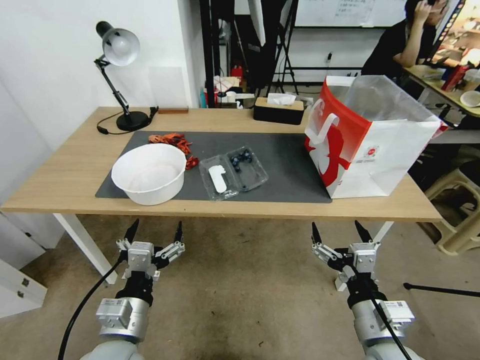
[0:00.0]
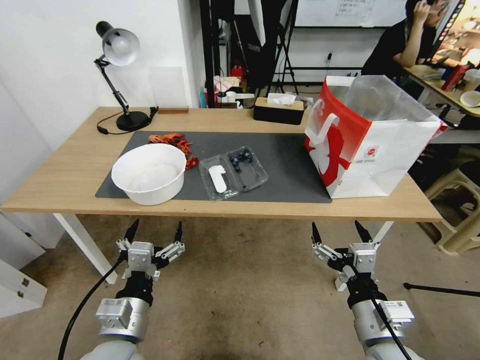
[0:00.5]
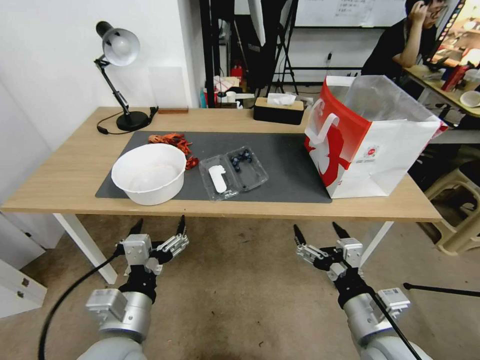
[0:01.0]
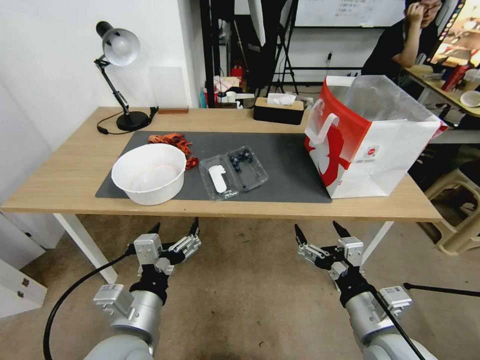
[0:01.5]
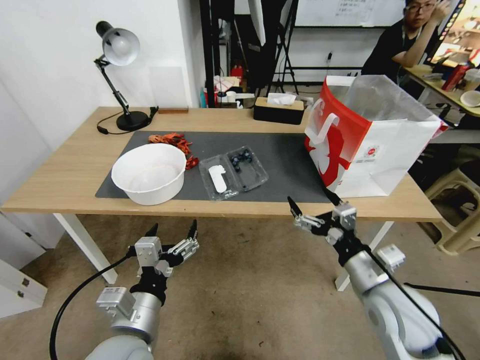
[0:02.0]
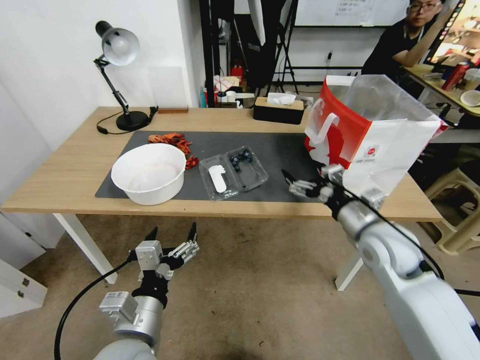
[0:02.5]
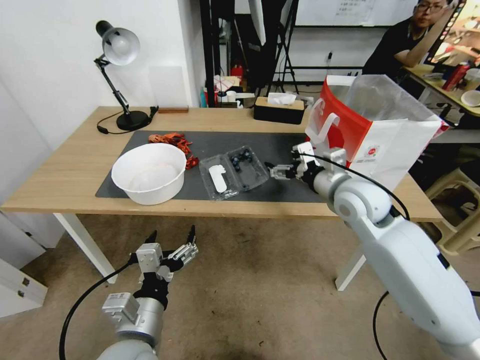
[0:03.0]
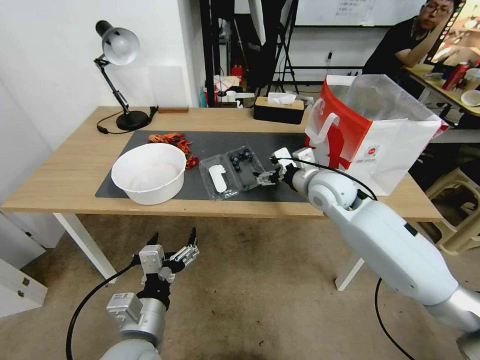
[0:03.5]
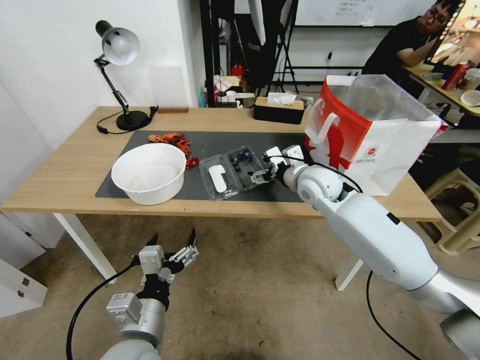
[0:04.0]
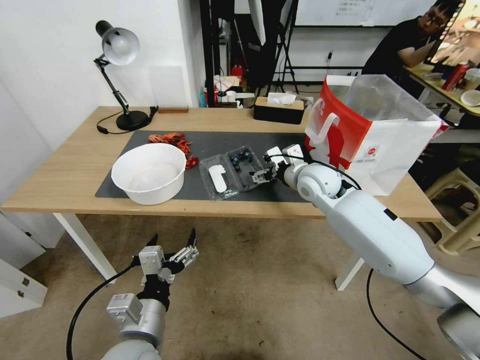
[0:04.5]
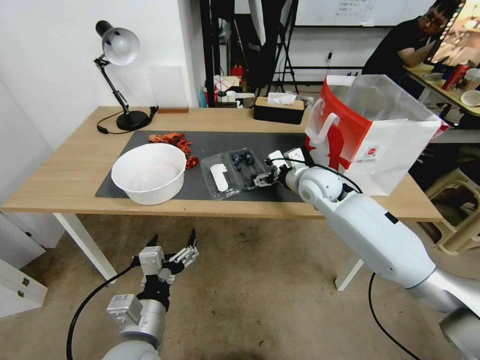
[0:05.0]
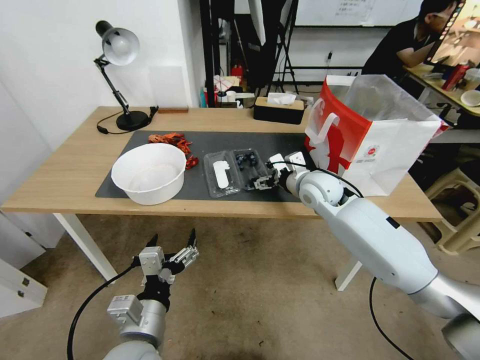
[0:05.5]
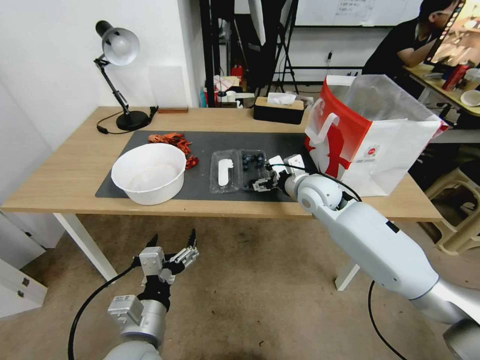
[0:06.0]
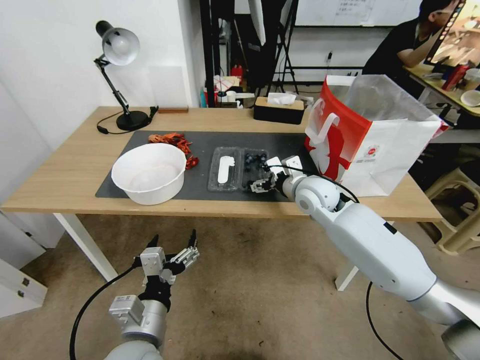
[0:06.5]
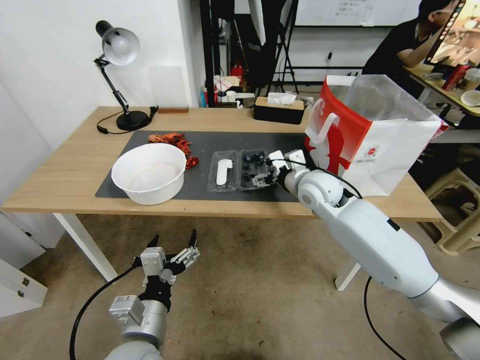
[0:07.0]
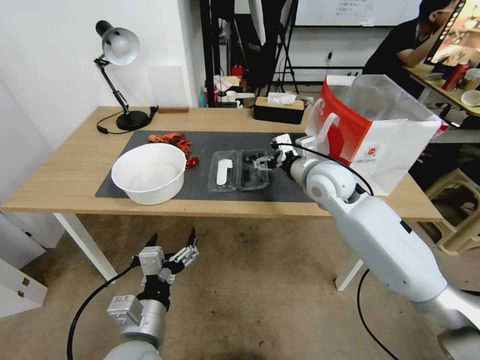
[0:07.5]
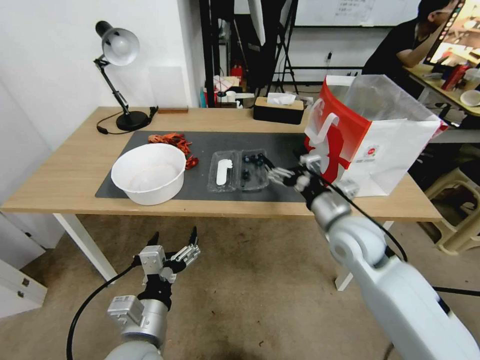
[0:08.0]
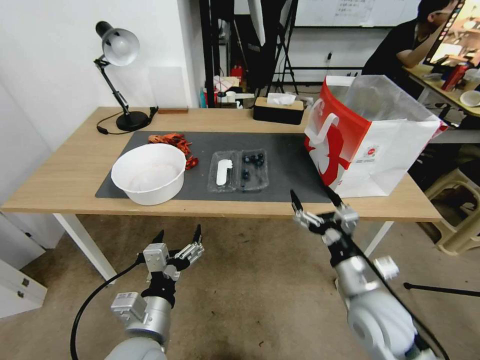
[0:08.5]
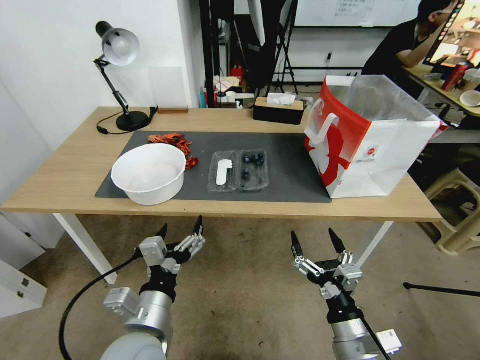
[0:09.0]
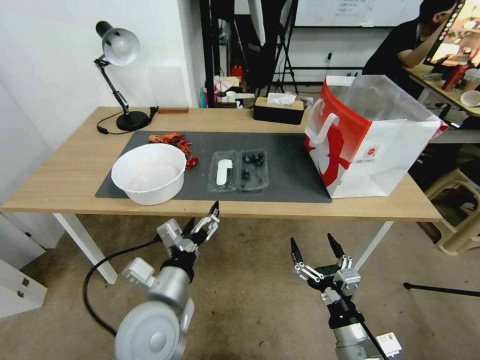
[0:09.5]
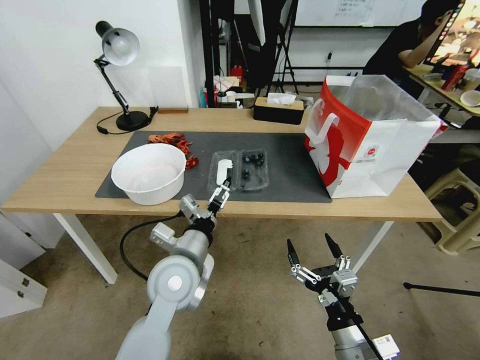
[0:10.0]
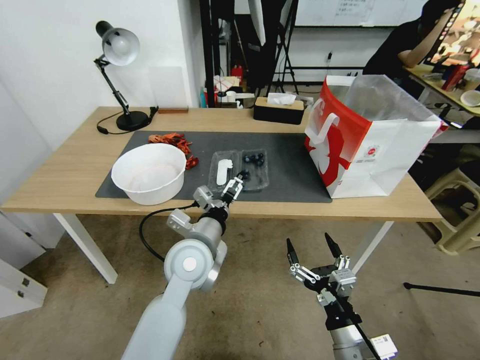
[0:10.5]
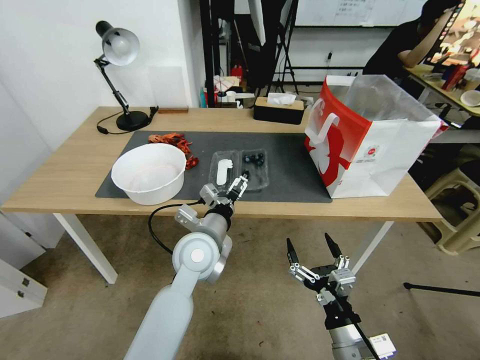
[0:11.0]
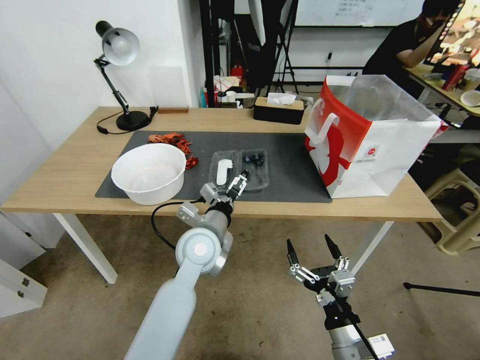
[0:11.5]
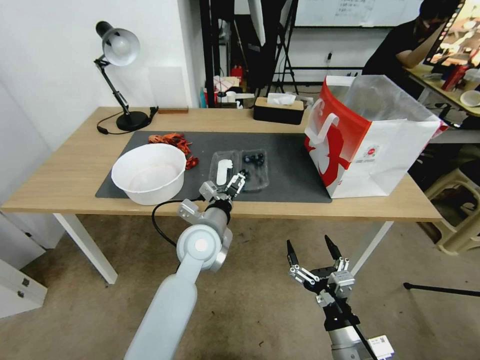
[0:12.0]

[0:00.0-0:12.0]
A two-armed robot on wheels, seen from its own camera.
Task of the whole recording: Close the takeout container lid, then place the container into the takeout bag.
0:02.0 to 0:04.0: The right gripper travels forward by approximately 25 cm.
0:04.0 to 0:06.0: The grippers make only small movements.
0:06.0 to 0:08.0: The right gripper heads backward, covering roughly 10 cm.
0:08.0 to 0:10.0: The left gripper moves forward, approximately 15 cm, while the right gripper shifts approximately 25 cm backward and downward.
0:10.0 to 0:12.0: The left gripper travels forward by roughly 10 cm.

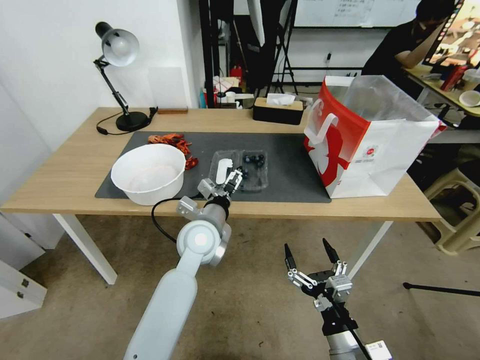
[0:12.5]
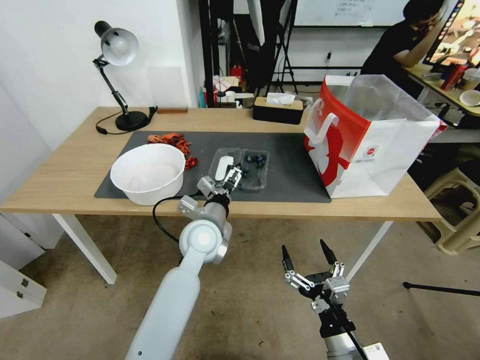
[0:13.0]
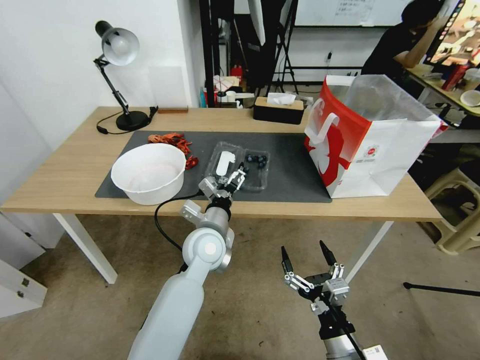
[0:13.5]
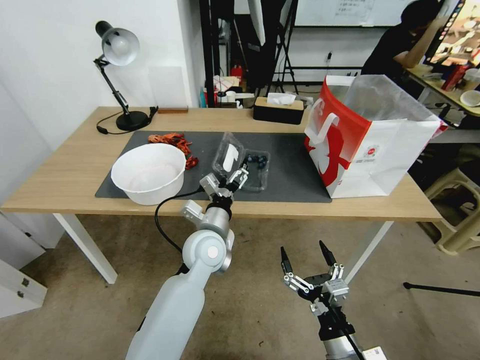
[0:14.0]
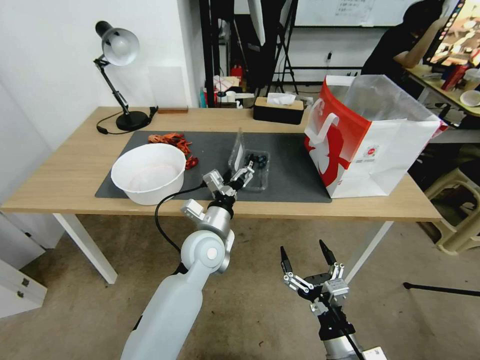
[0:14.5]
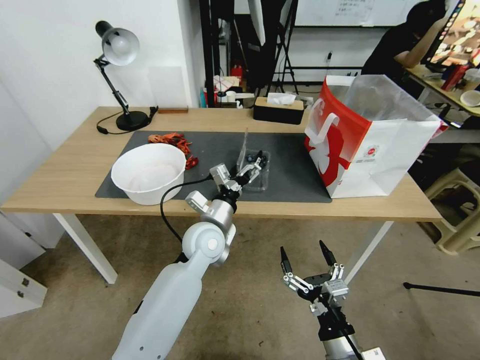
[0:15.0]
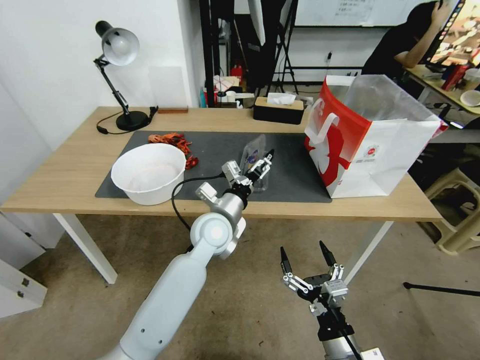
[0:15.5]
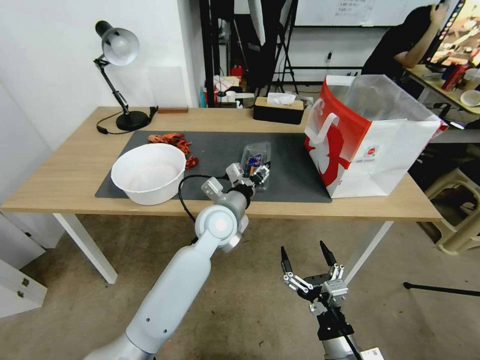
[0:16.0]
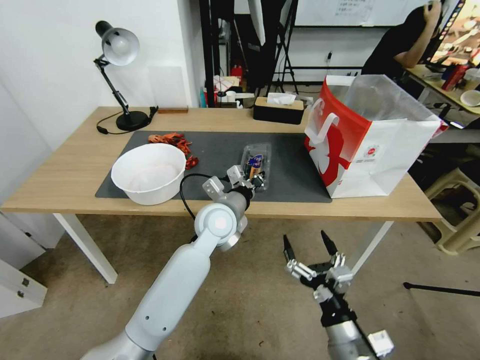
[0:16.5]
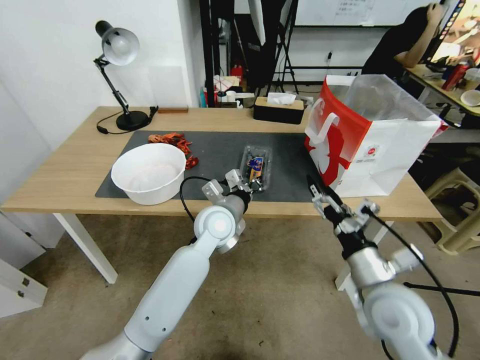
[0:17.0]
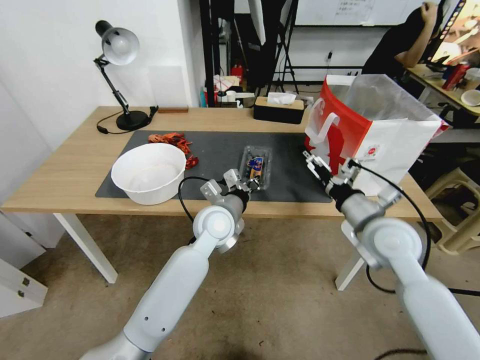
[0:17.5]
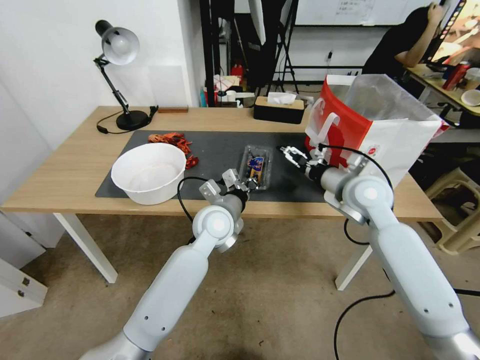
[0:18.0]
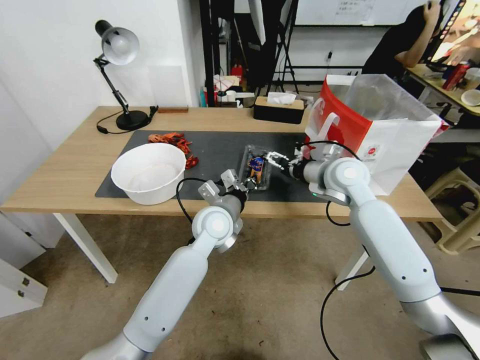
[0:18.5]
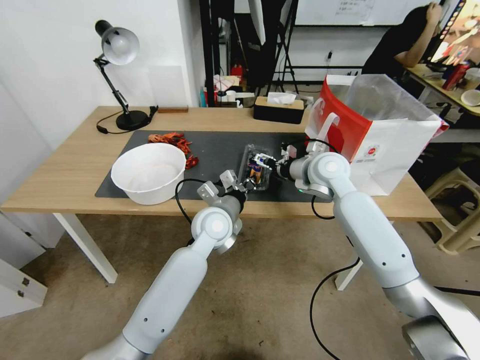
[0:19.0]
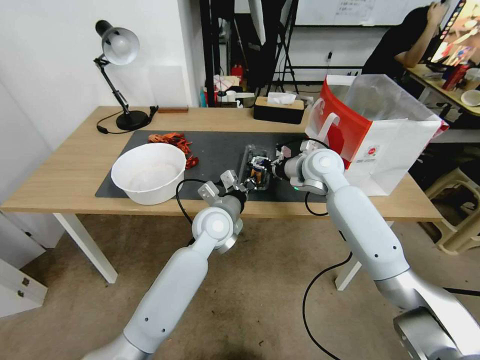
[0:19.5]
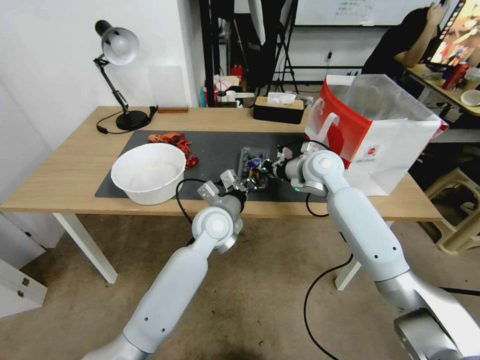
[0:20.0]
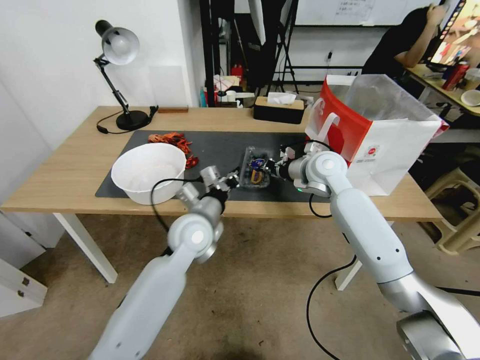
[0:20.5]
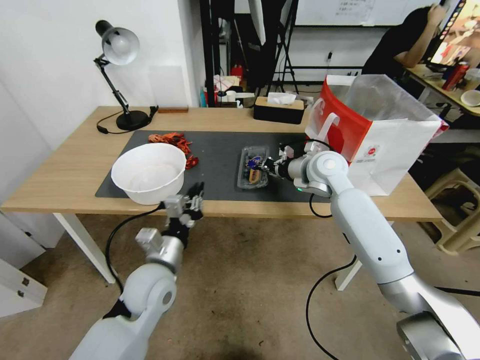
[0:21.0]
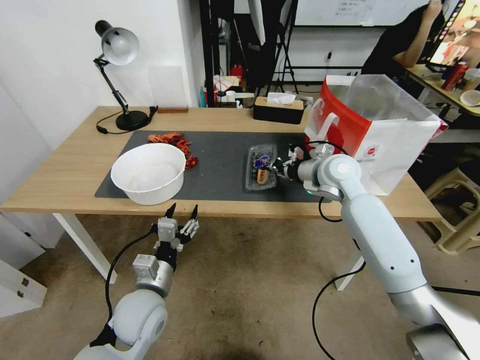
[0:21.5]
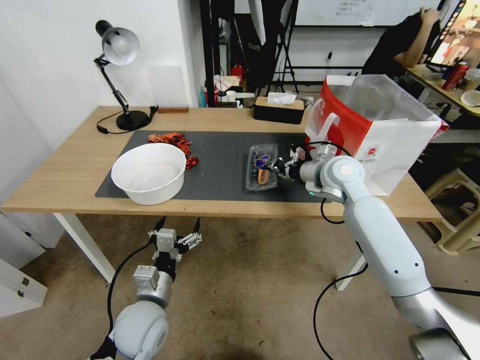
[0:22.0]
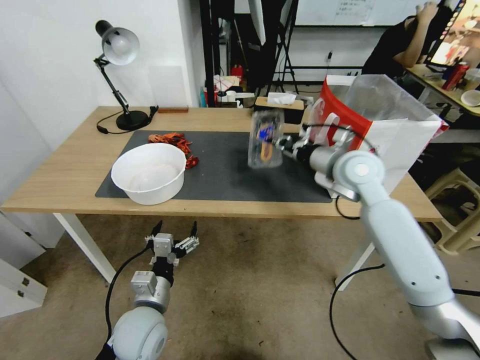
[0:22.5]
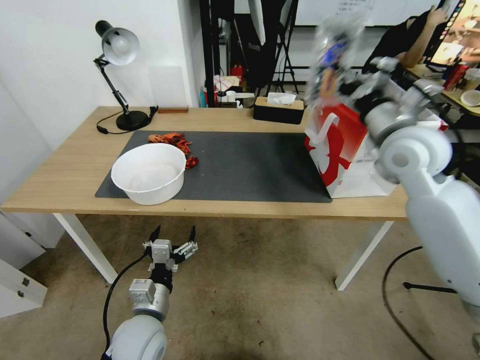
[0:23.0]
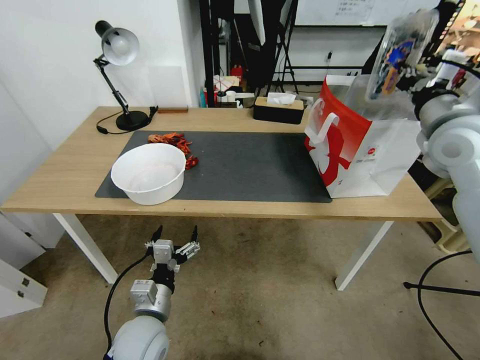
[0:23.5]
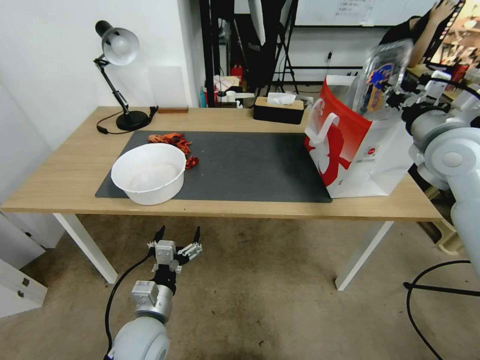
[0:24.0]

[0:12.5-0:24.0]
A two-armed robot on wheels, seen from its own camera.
Task of the whole recording: Close the takeout container lid, then place the container into the takeout bag.
0:14.5 to 0:16.5: The left gripper moves approximately 5 cm, and closes up.
0:16.5 to 0:18.5: The right gripper heads forward and upward, covering approximately 35 cm.
0:18.5 to 0:20.0: The right gripper shifts by roughly 5 cm, and closes its fingers.
0:20.0 to 0:22.0: The left gripper moves backward, to the left and downward, approximately 25 cm, and opens up.
0:22.0 to 0:24.0: The right gripper moves to the right, upward and backward, some 20 cm.

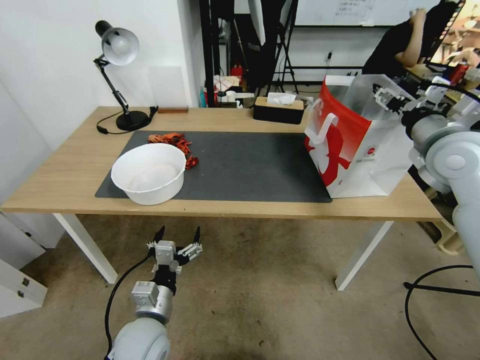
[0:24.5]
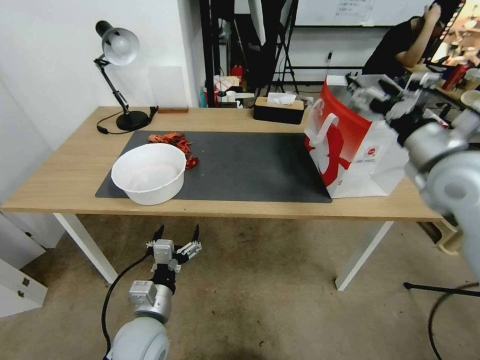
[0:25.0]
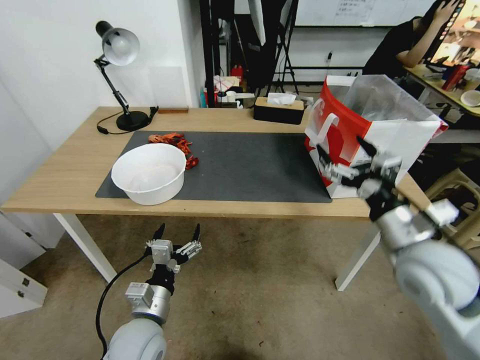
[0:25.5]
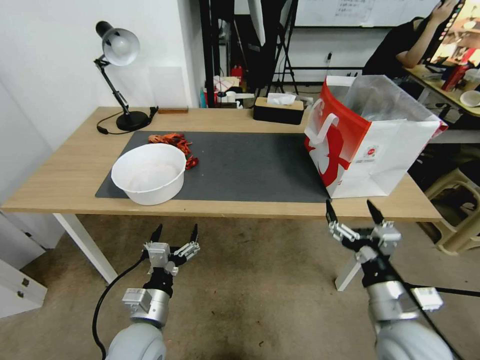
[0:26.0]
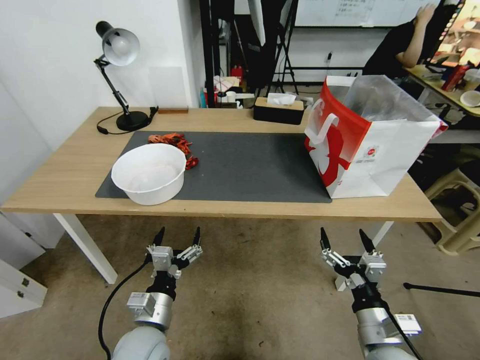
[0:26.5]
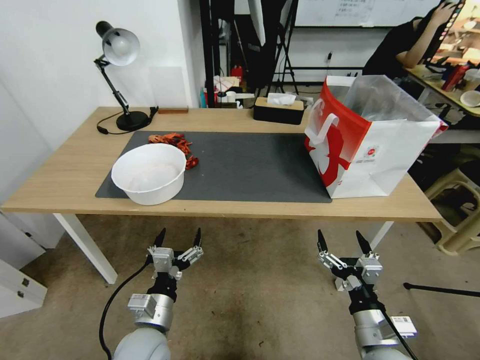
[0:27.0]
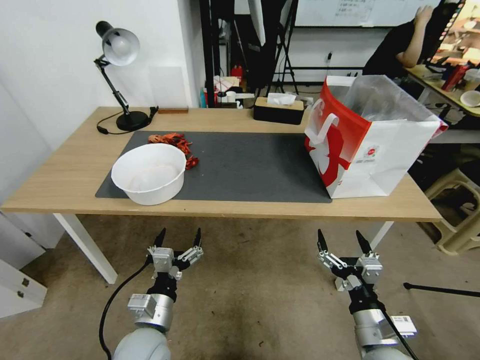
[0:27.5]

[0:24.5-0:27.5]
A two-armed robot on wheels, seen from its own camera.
Task of the whole recording: Close the takeout container lid, then place the container into the takeout bag.
0:24.5 to 0:26.0: The right gripper travels backward, downward and to the left by some 35 cm.
0:26.0 to 0:27.5: The right gripper moves downward, approximately 5 cm.
